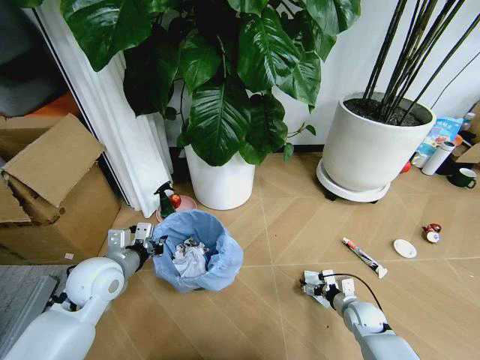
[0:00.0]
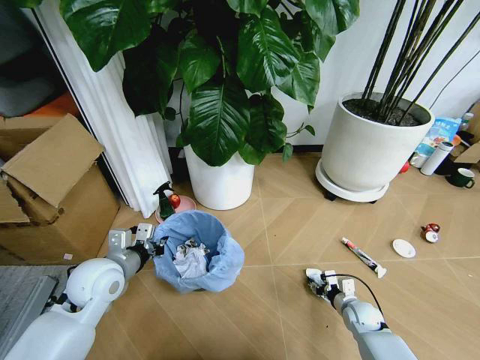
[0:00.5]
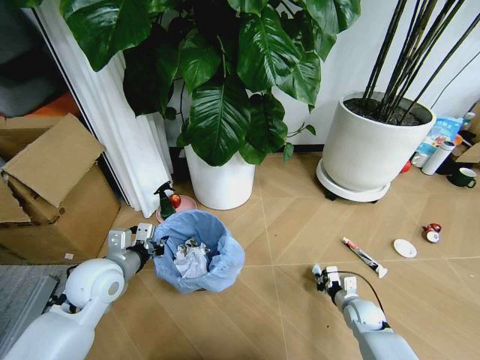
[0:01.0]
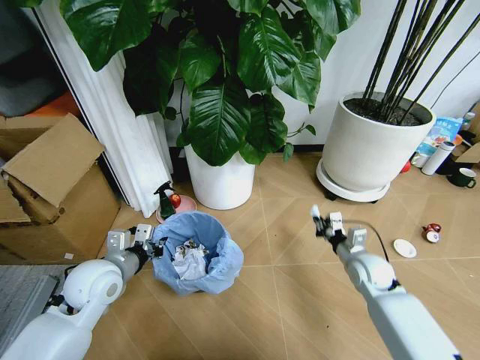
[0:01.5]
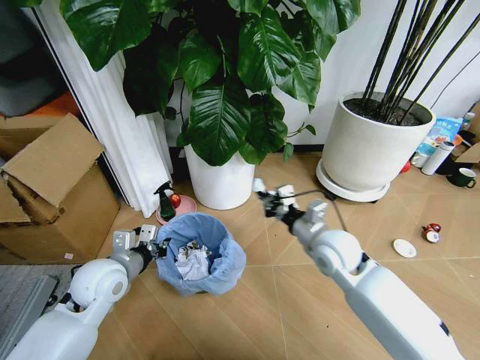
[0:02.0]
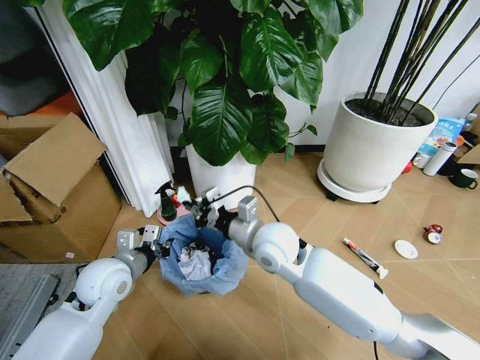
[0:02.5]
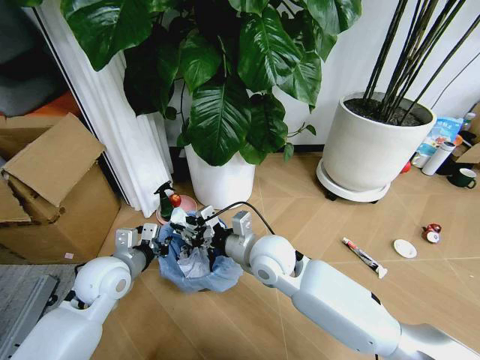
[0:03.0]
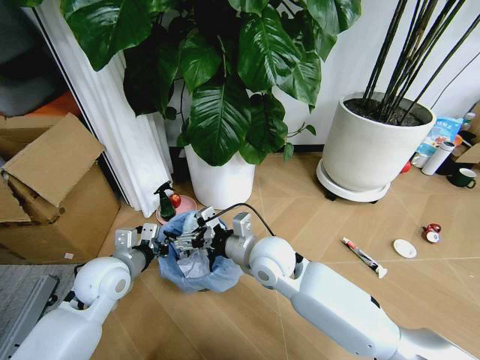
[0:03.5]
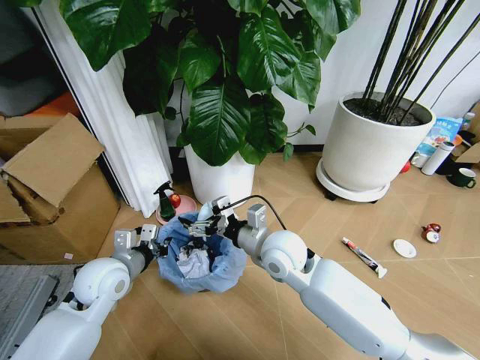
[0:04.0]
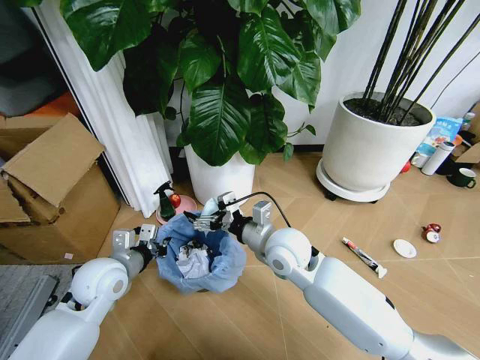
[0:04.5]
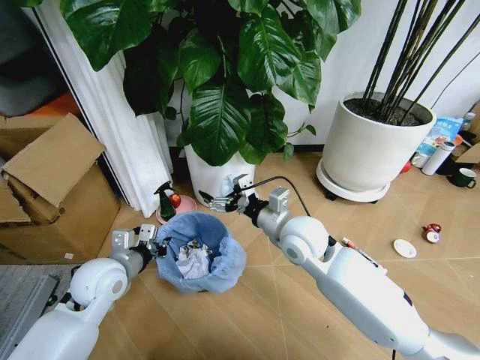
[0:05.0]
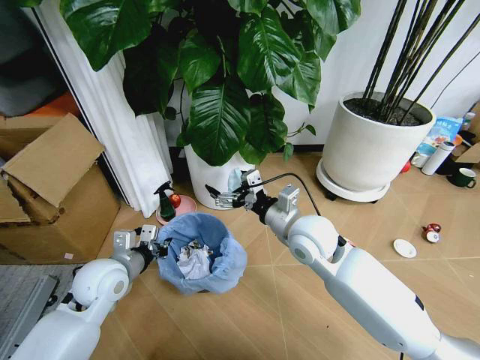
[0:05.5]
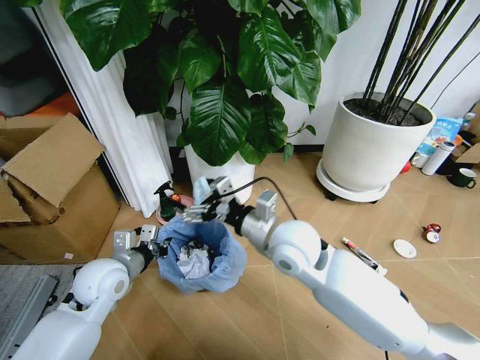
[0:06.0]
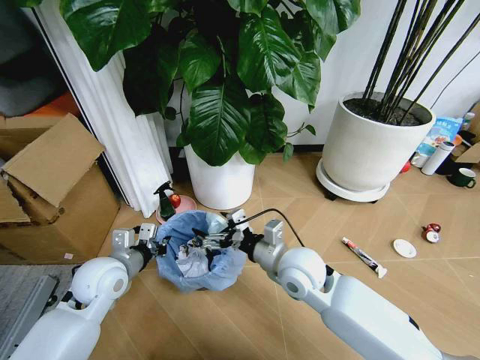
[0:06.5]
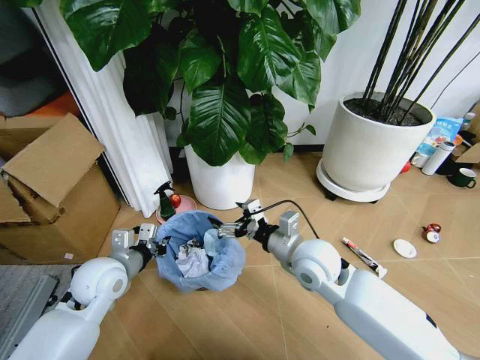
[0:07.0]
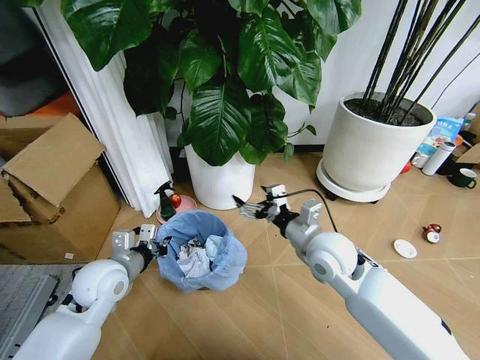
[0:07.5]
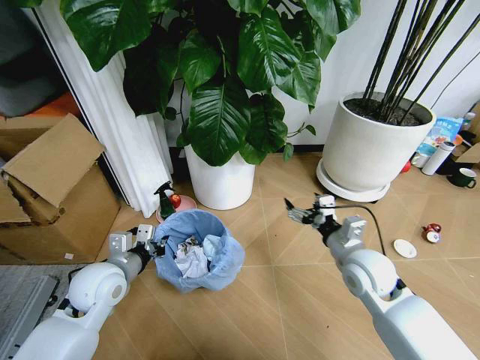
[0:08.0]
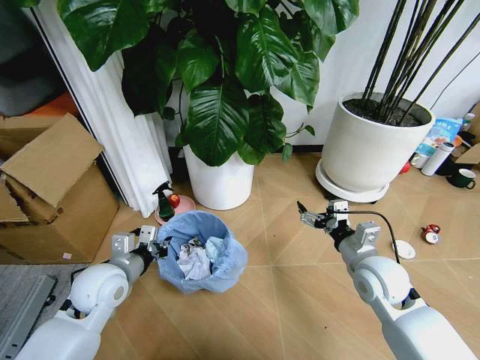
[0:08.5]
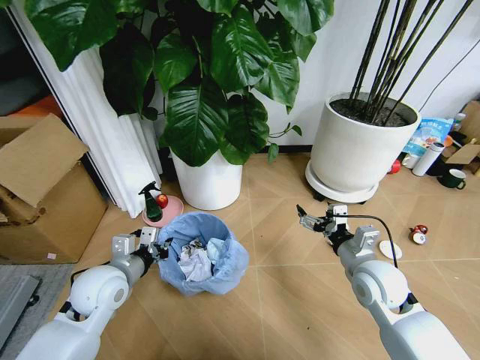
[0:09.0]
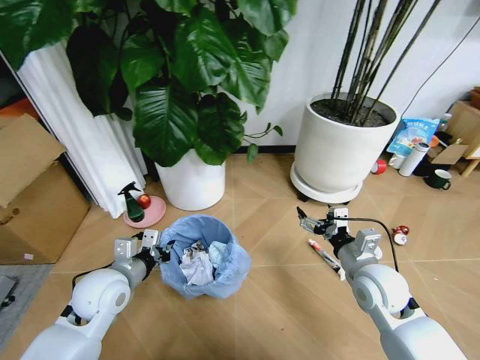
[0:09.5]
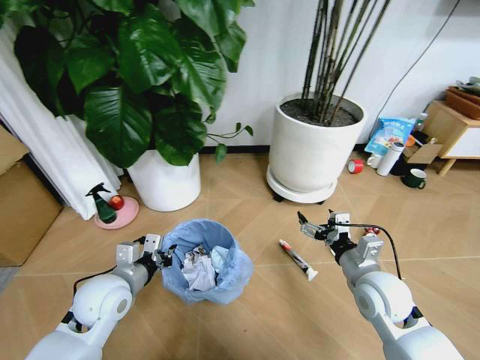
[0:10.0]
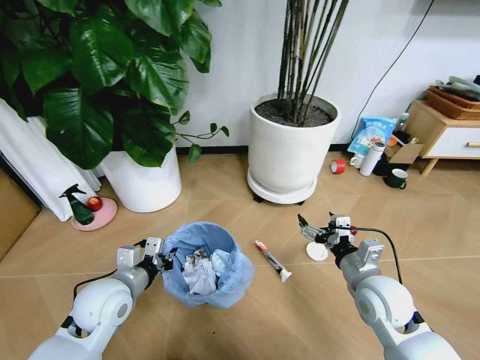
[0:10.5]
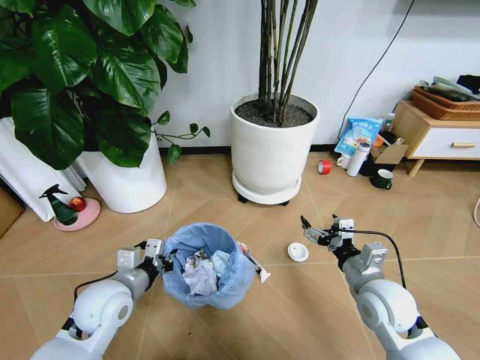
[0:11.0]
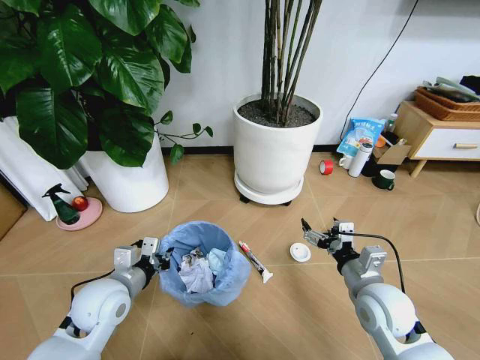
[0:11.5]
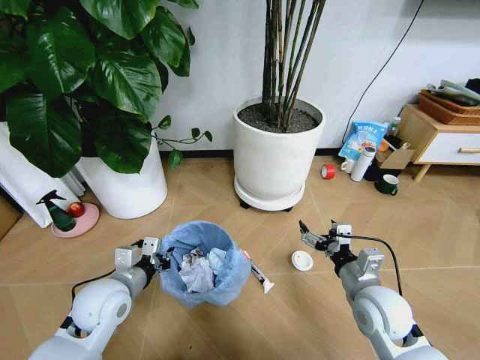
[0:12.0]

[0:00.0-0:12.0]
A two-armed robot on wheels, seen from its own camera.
Task of the whole recording: Pick up the trash bin and place the garbage on the floor into it.
0:00.0 to 0:02.0: The right gripper shifts some 30 cm upward and to the left, and closes up.
0:02.0 to 0:04.0: The right gripper goes approximately 10 cm to the left, and opens.
0:04.0 to 0:06.0: The right gripper is displaced upward by some 5 cm.
0:06.0 to 0:08.0: The right gripper moves to the right and downward, roughly 20 cm.
0:08.0 to 0:10.0: The right gripper moves roughly 5 cm.

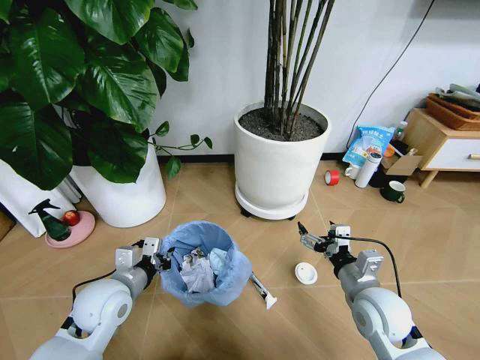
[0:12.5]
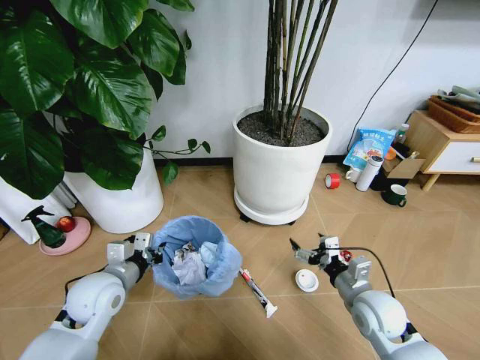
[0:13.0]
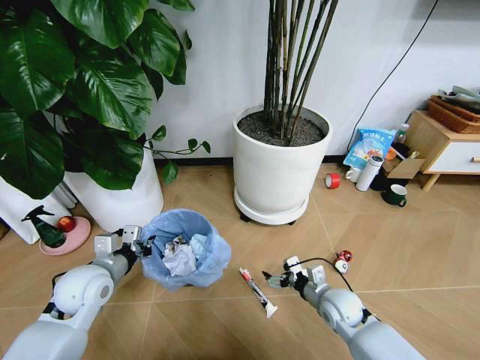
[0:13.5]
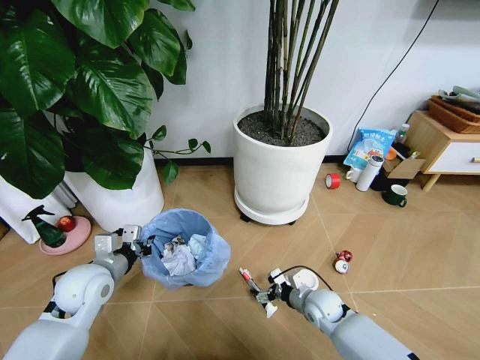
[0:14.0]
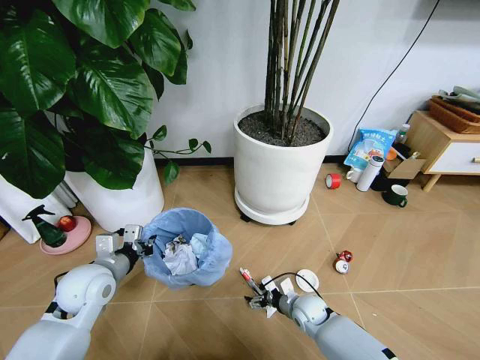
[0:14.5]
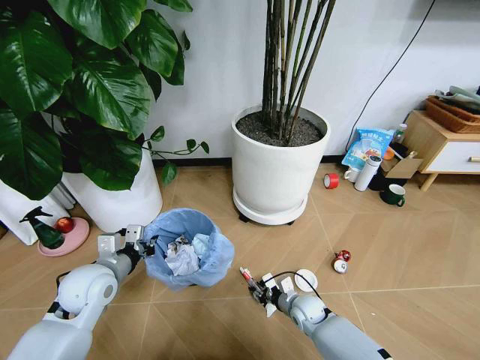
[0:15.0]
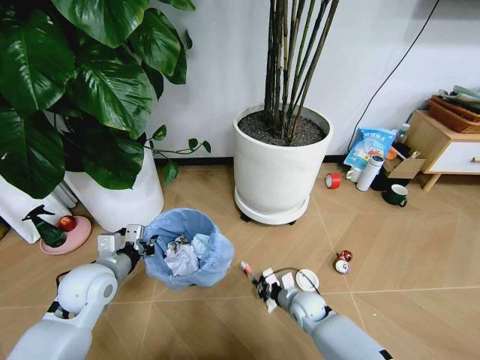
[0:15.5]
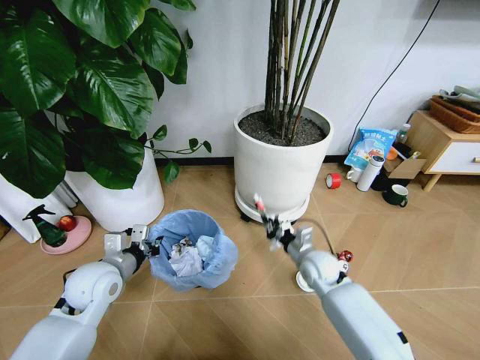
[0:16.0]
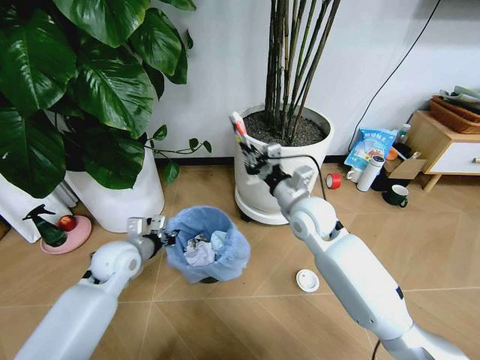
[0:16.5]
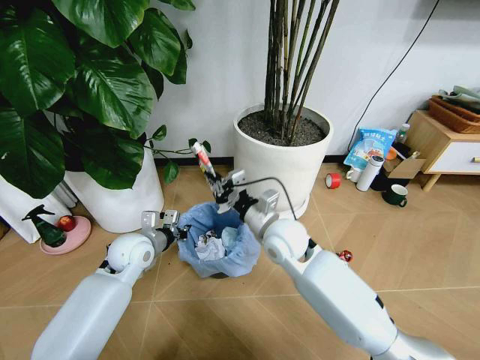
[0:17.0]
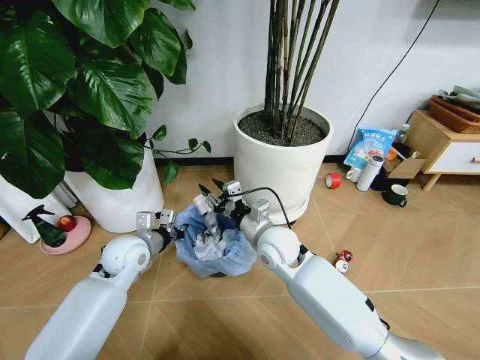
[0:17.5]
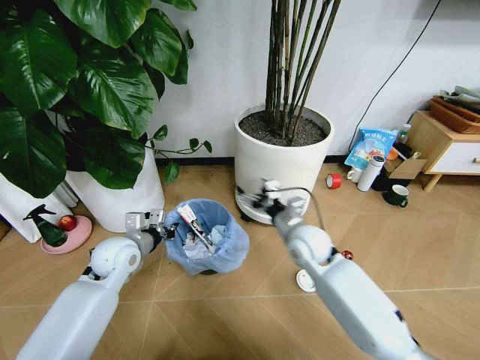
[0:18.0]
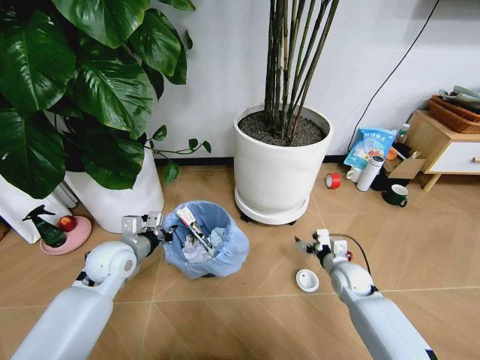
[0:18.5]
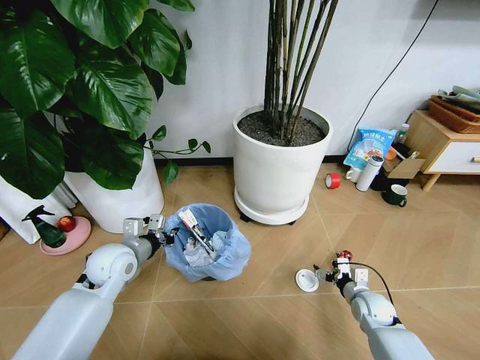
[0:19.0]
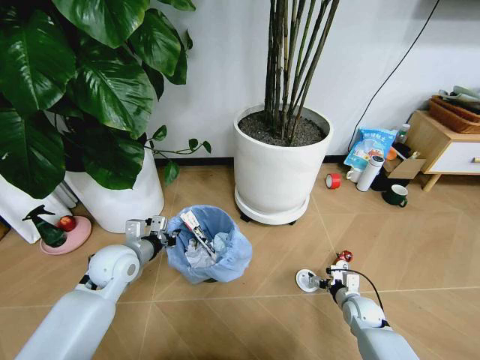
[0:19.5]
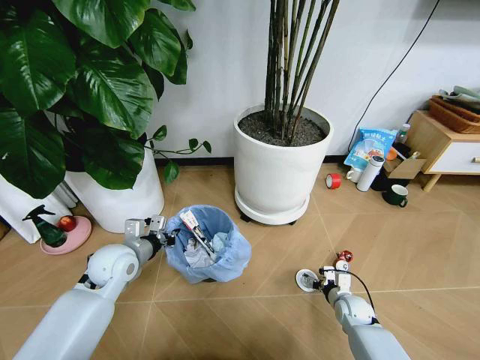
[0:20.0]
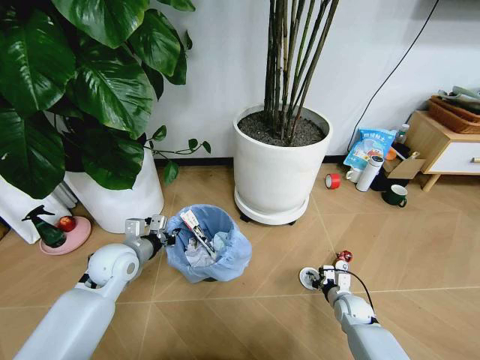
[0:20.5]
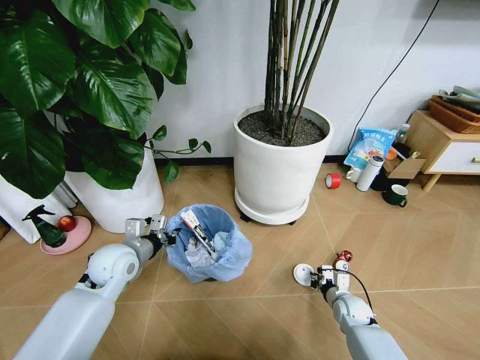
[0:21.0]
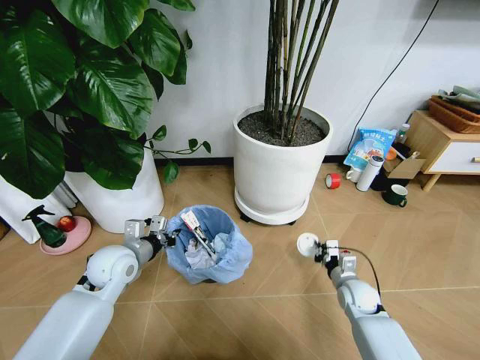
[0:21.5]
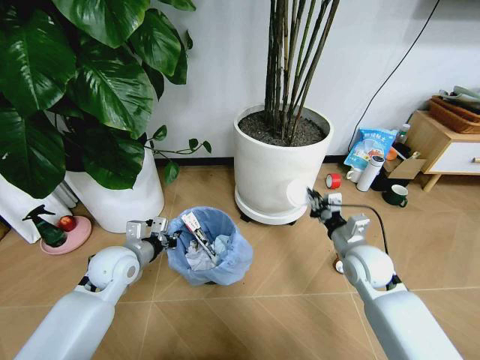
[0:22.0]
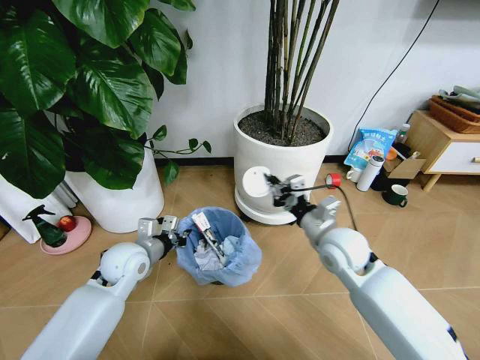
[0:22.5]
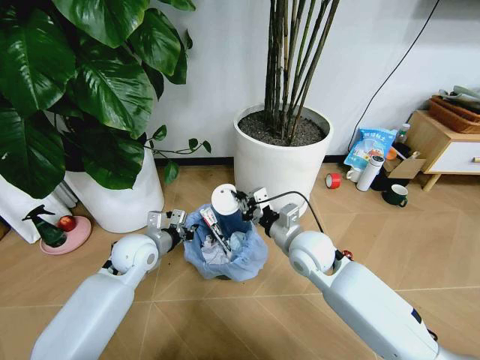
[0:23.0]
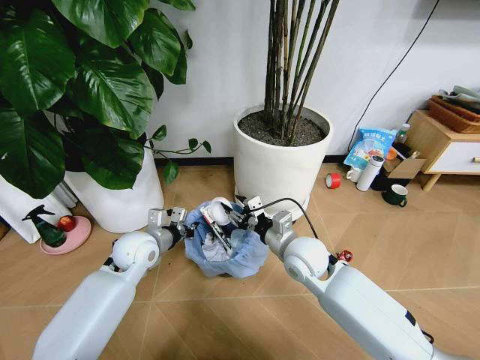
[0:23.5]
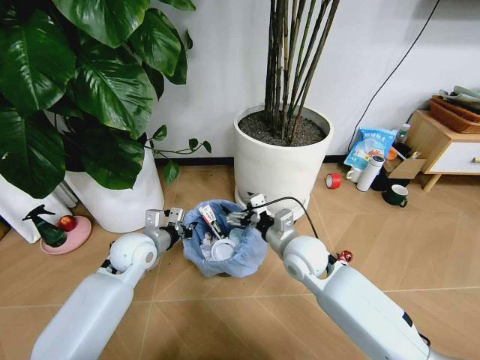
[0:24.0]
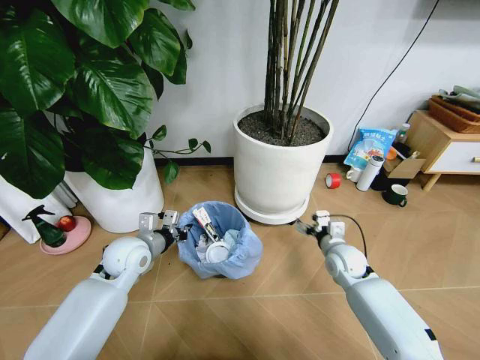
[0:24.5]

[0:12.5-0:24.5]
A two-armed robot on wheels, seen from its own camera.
Task of the whole recording: Pick up the trash bin and place the garbage on the floor into it.
0:12.5 to 0:14.5: The right gripper is displaced downward by roughly 20 cm; the left gripper changes place by approximately 5 cm.
0:14.5 to 0:16.5: The left gripper heads forward, covering some 5 cm, while the right gripper heads upward, covering some 30 cm, and closes.
0:16.5 to 0:18.5: The right gripper heads downward and to the right, covering some 25 cm, and opens.
0:18.5 to 0:20.5: The right gripper moves downward, roughly 10 cm, and closes up.
0:20.5 to 0:22.5: The right gripper moves upward, some 30 cm.
0:22.5 to 0:24.5: The right gripper shifts approximately 15 cm downward and to the right, and opens.

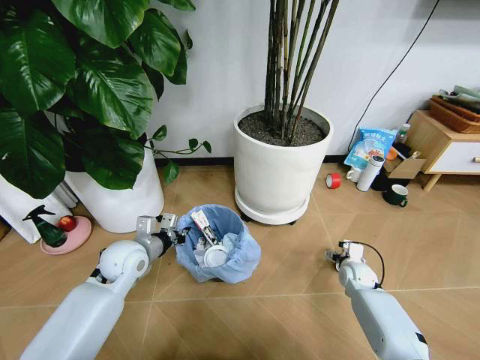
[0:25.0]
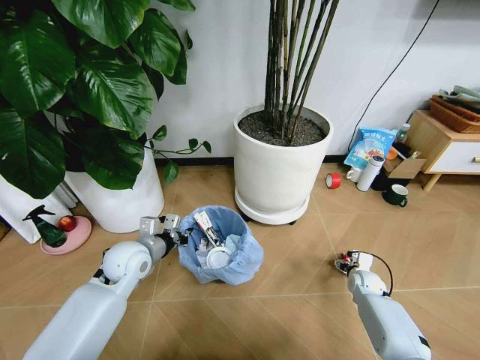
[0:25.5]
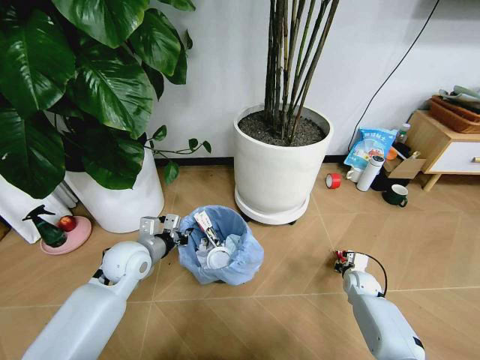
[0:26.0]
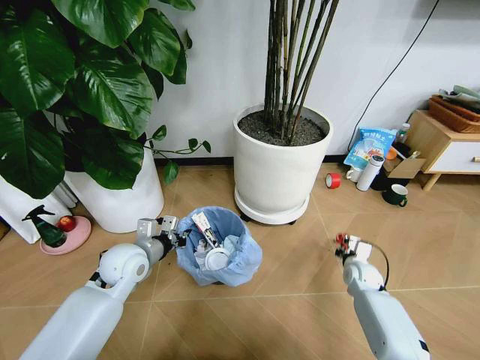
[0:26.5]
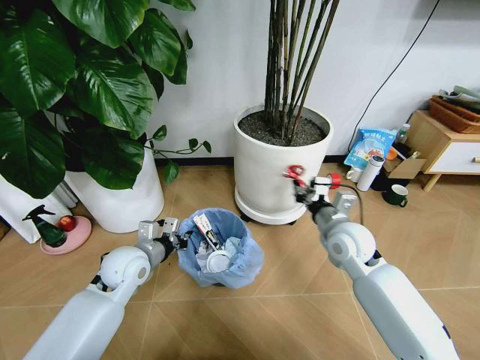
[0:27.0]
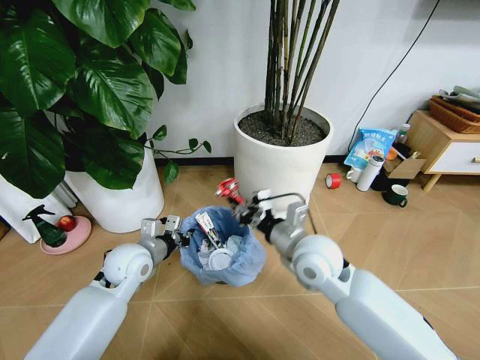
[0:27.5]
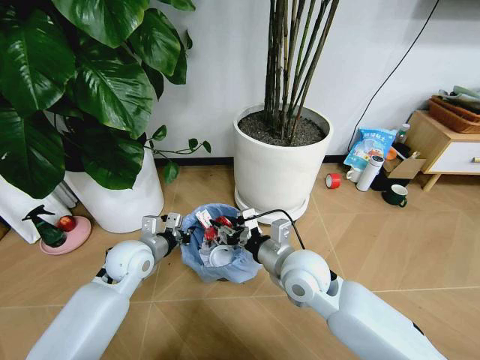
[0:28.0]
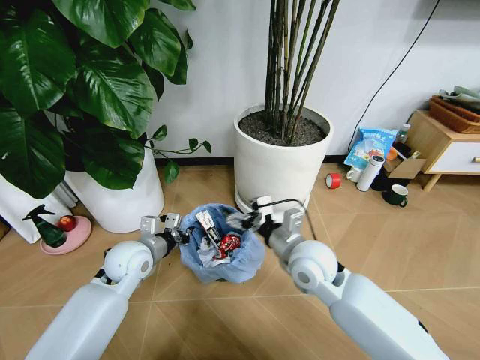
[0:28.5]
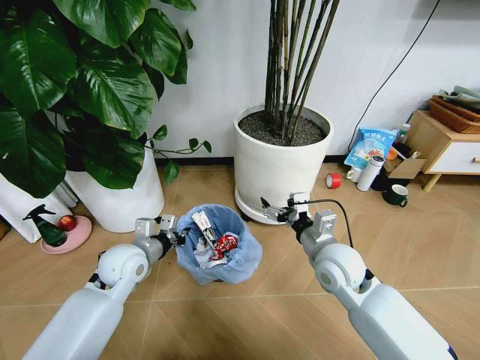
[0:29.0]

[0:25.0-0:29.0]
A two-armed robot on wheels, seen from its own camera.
Task of the whole recording: Pick up the trash bin and place the garbage on the floor into it.
0:25.0 to 0:27.0: The right gripper travels upward and to the left by some 25 cm, and closes.
0:27.0 to 0:29.0: The right gripper opens its fingers.
